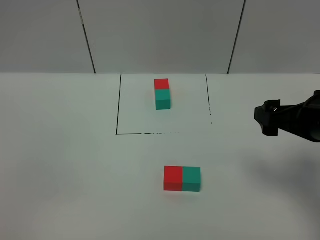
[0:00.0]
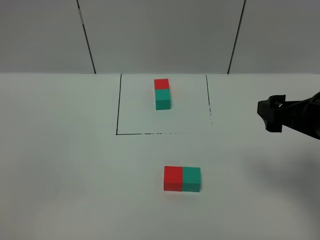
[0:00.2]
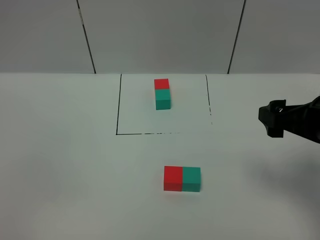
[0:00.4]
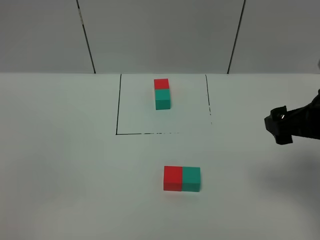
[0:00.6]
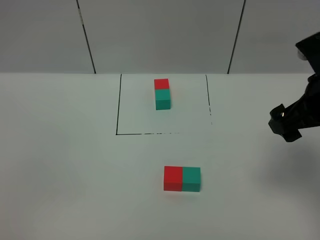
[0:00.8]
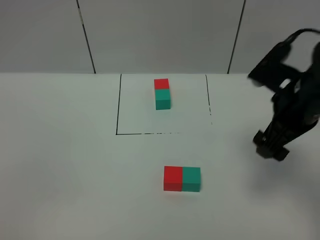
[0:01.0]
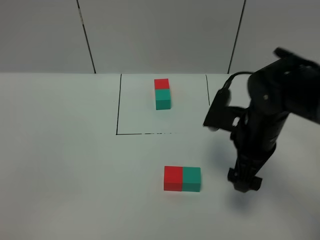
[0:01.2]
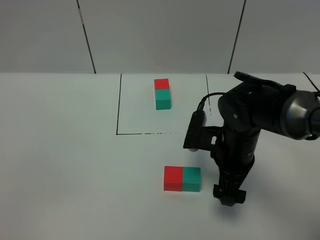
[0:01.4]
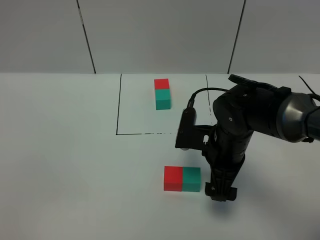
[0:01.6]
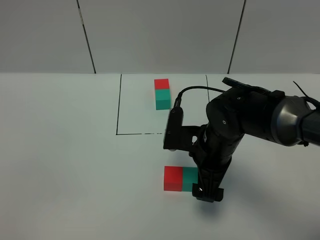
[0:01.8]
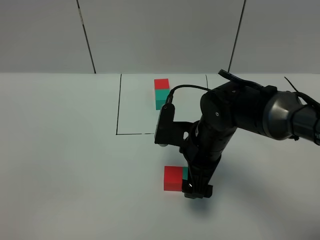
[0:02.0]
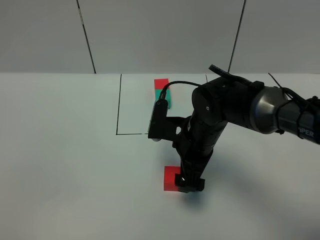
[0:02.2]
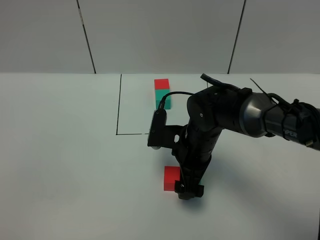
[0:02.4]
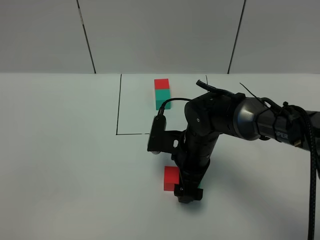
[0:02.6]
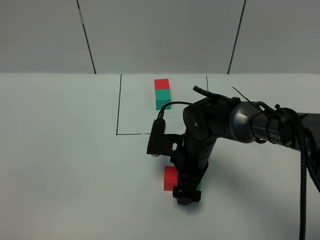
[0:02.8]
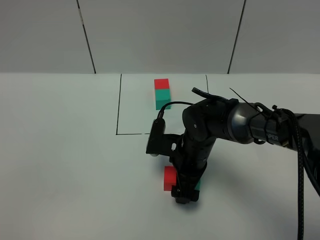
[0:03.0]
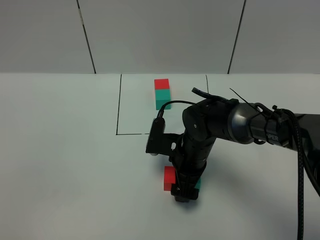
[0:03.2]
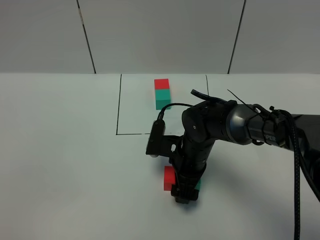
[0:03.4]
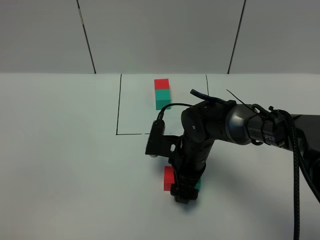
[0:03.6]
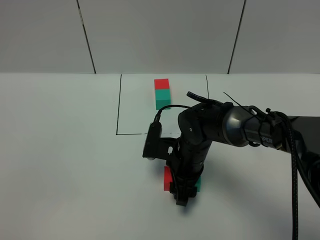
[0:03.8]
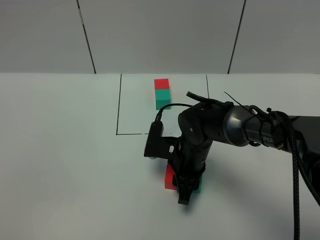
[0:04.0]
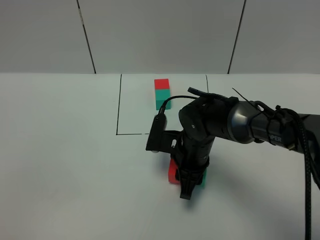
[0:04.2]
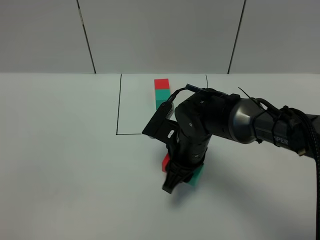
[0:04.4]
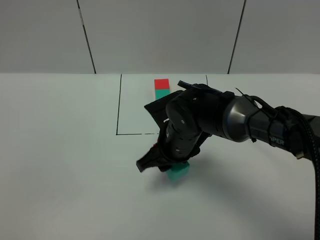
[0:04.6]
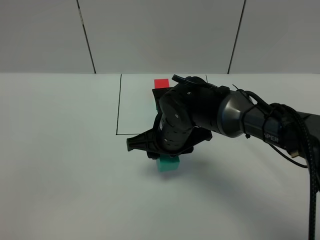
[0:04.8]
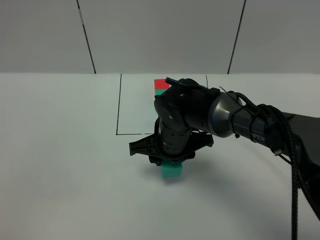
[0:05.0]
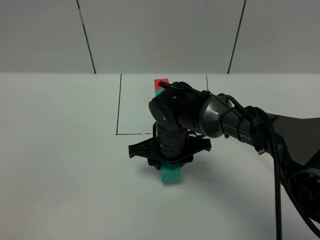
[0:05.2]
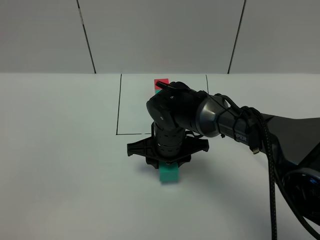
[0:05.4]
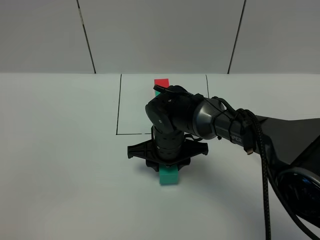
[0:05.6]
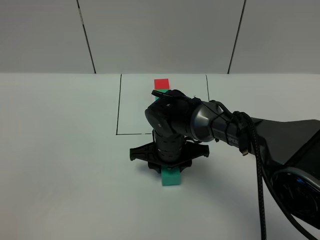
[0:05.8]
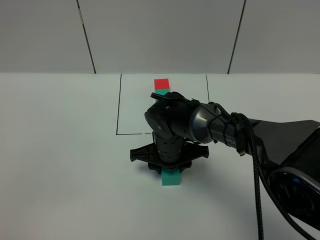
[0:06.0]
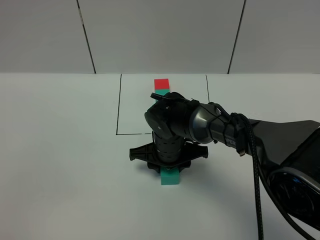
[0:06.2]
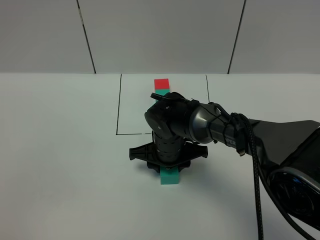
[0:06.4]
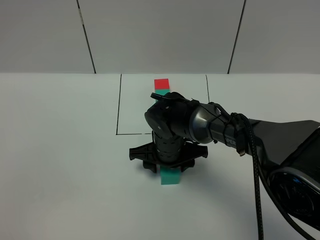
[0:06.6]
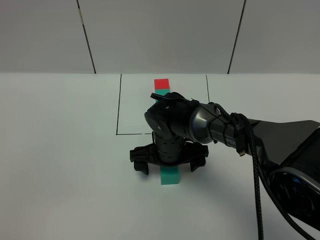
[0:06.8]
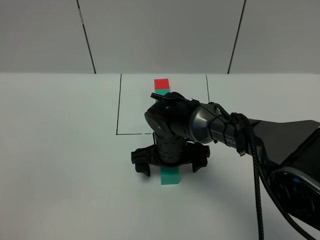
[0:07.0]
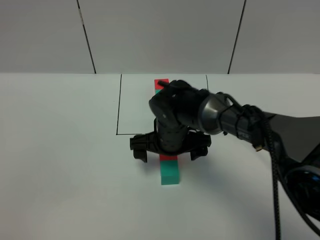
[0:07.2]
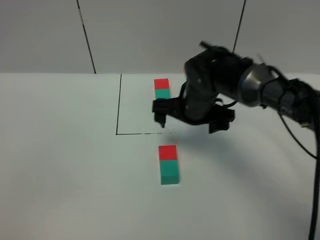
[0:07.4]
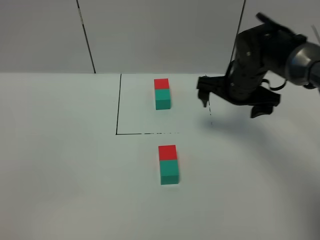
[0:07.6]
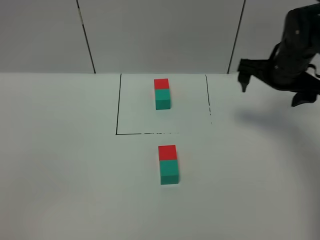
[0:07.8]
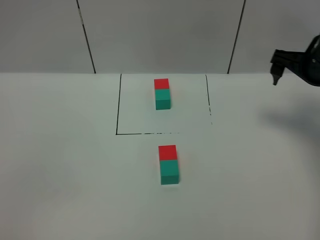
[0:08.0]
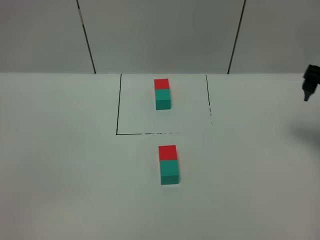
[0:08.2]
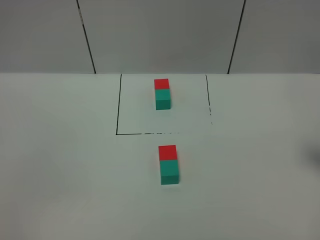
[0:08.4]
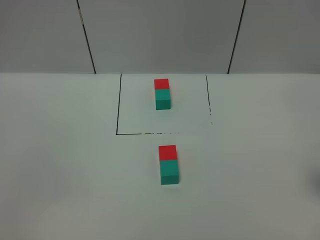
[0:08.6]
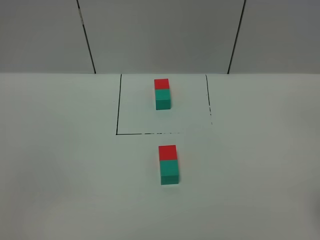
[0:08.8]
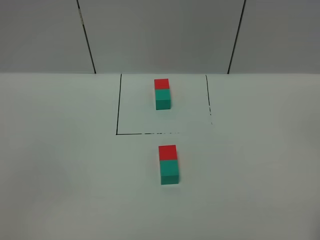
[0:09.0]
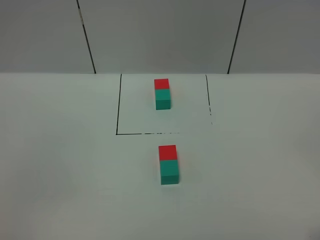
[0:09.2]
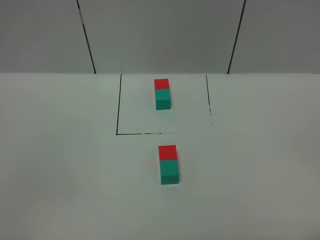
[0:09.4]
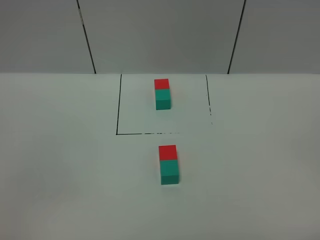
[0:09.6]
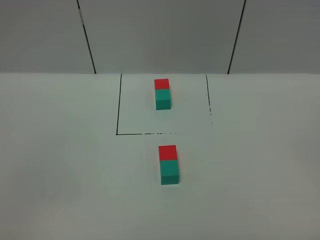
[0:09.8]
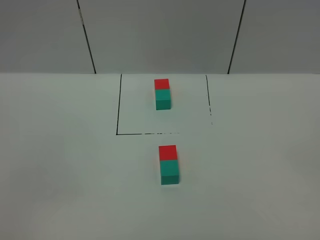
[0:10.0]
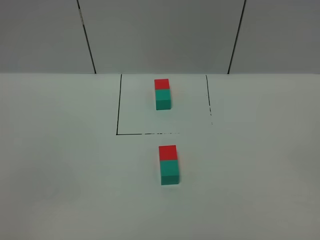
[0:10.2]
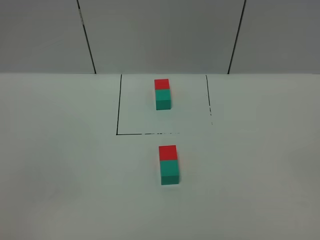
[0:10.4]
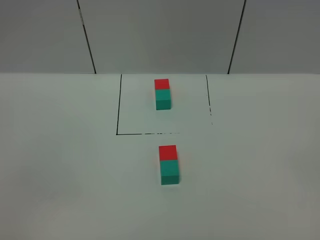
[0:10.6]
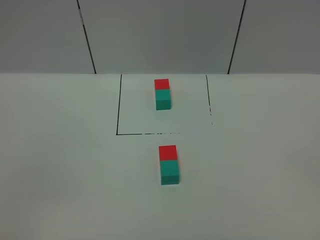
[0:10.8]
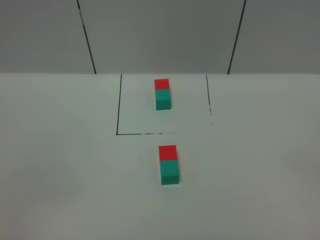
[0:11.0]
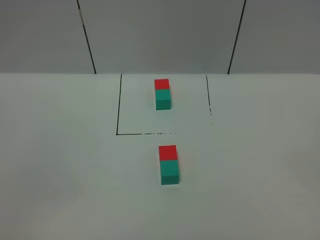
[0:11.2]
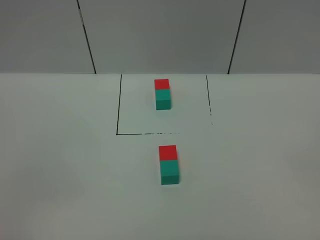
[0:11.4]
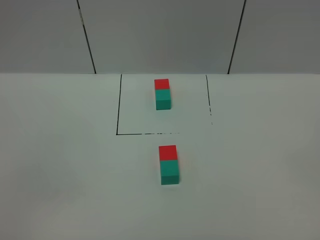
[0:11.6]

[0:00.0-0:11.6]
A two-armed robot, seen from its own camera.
Task of the whole recording: According to the building block template in front, assemble the scattered blocks together.
Step, 0:00.2 to 0:07.6: Adjust the pose of the building blocks.
0:00.0 to 0:01.4: The right gripper heads to the left, downward and forward, covering approximately 15 cm.
0:01.4 to 0:02.8: The right gripper goes approximately 10 cm to the left and downward.
0:02.8 to 0:04.4: The right gripper closes up.
0:04.4 to 0:05.8: The right gripper shifts by approximately 5 cm.
0:05.8 to 0:07.2: The right gripper opens.
0:07.2 to 0:08.8: The right gripper shifts some 40 cm to the right, backward and upward.
0:10.2 to 0:11.6: Both grippers stay put.
